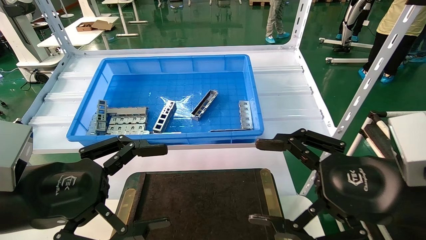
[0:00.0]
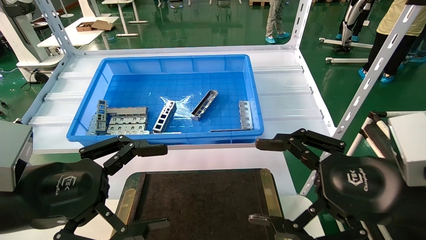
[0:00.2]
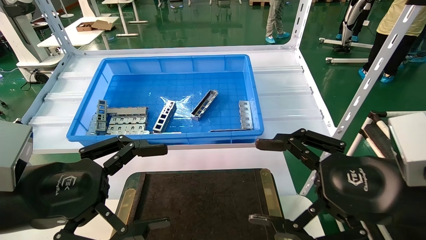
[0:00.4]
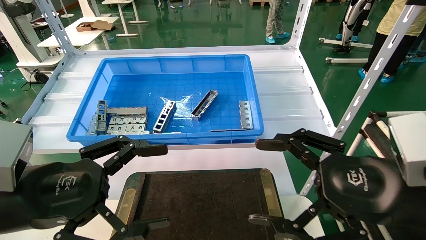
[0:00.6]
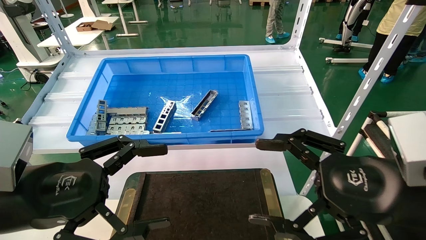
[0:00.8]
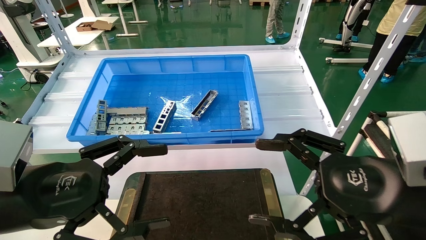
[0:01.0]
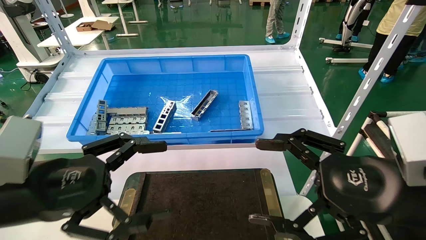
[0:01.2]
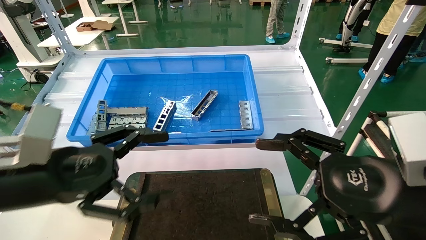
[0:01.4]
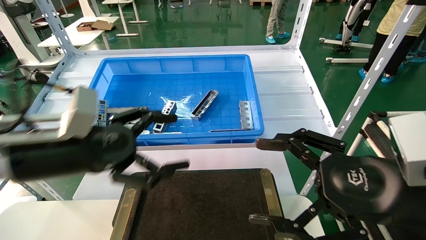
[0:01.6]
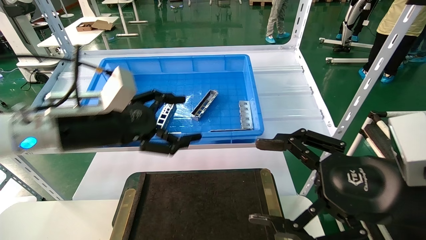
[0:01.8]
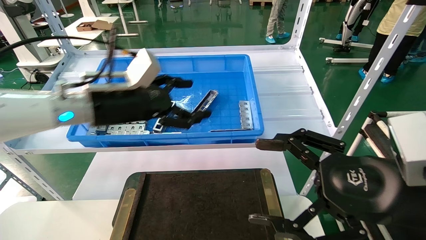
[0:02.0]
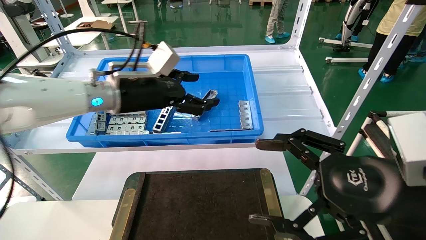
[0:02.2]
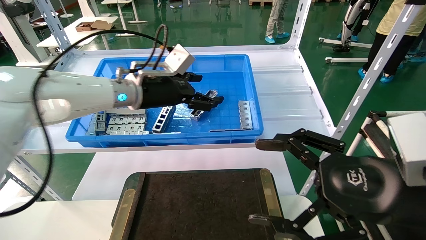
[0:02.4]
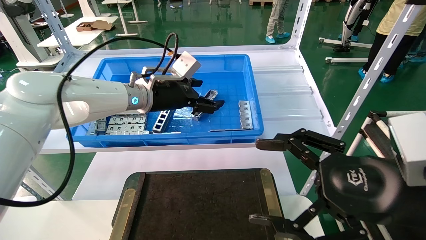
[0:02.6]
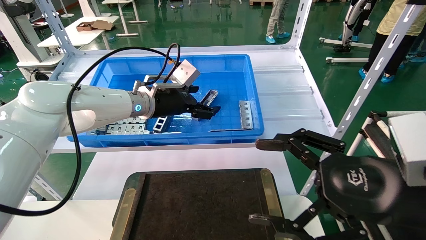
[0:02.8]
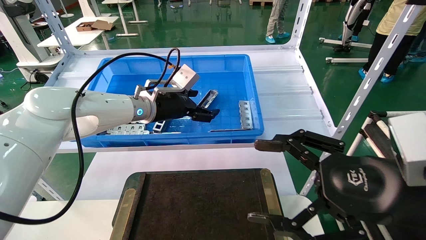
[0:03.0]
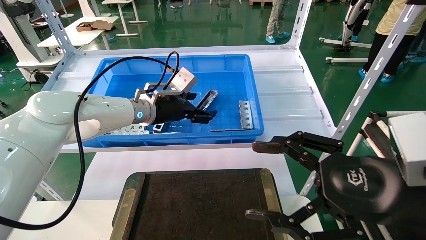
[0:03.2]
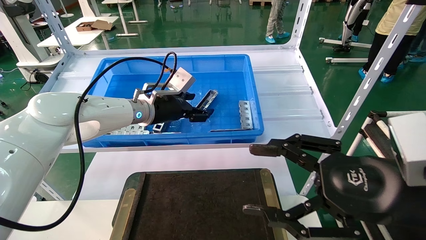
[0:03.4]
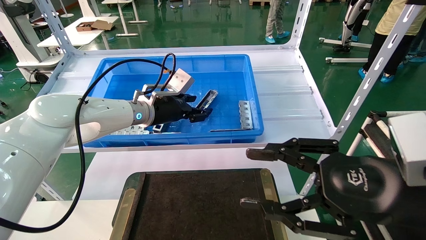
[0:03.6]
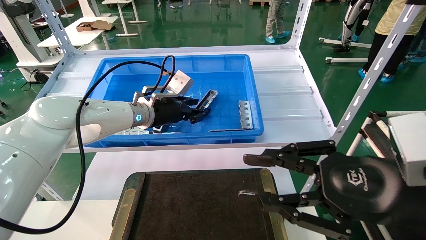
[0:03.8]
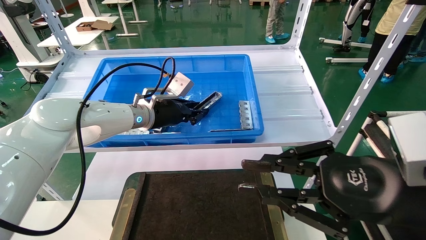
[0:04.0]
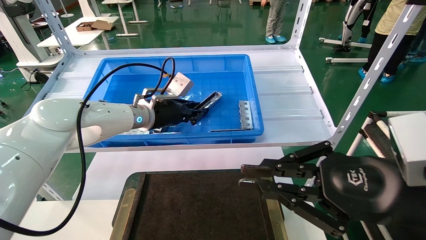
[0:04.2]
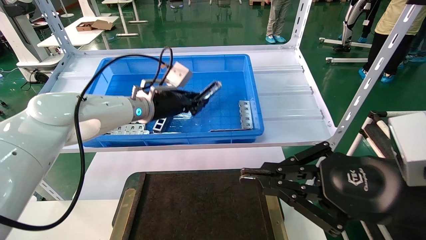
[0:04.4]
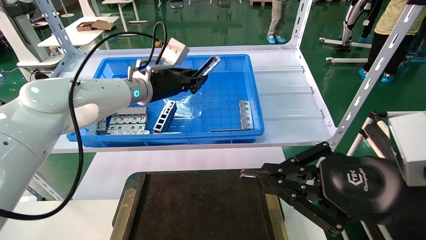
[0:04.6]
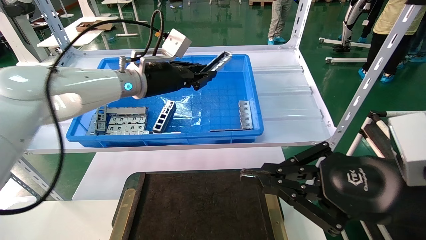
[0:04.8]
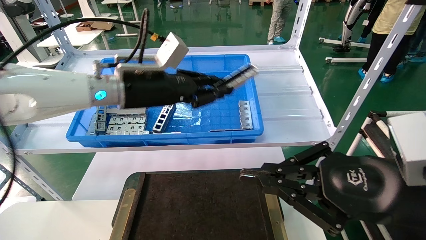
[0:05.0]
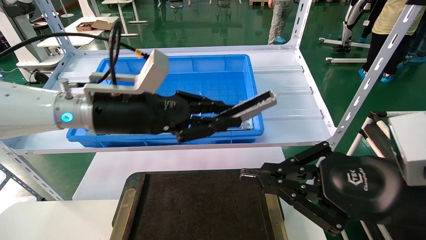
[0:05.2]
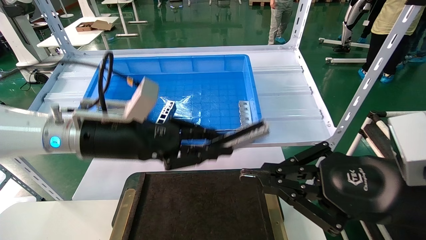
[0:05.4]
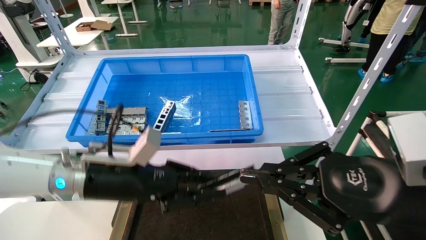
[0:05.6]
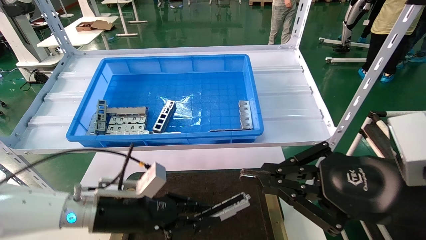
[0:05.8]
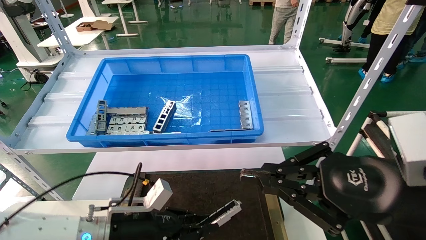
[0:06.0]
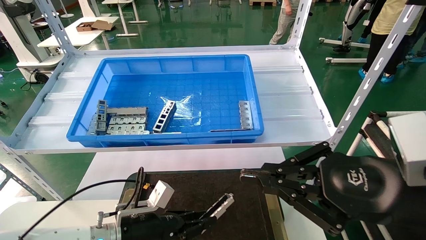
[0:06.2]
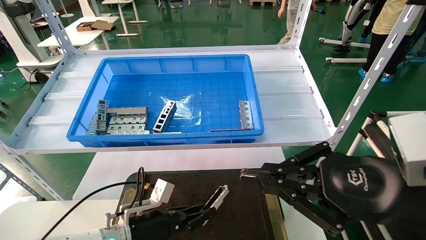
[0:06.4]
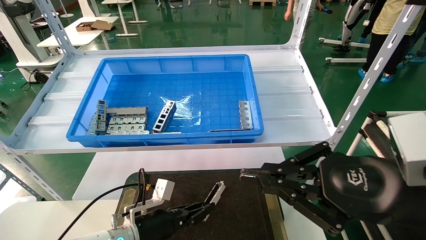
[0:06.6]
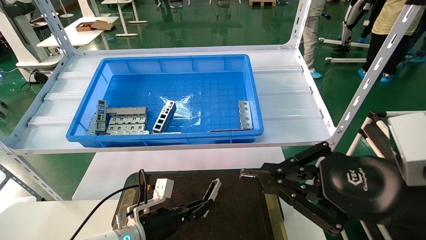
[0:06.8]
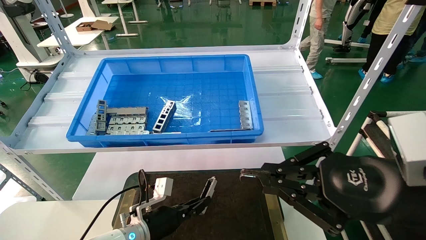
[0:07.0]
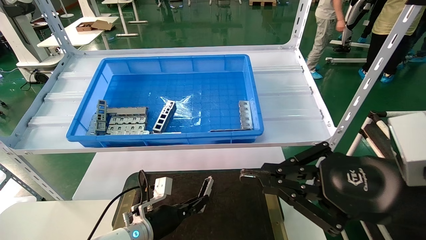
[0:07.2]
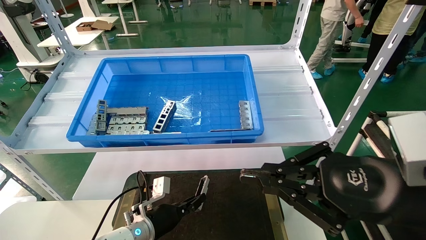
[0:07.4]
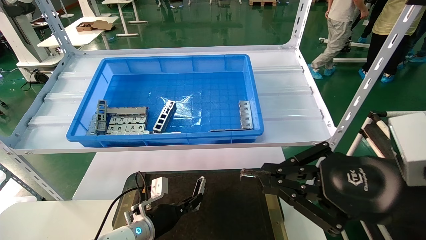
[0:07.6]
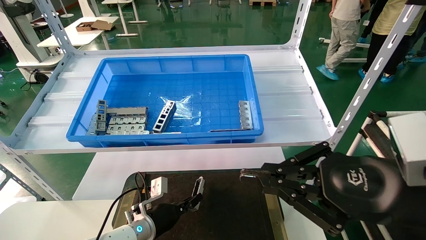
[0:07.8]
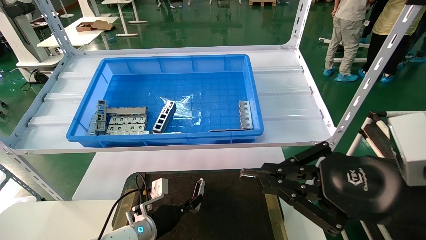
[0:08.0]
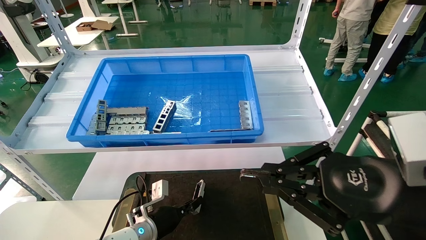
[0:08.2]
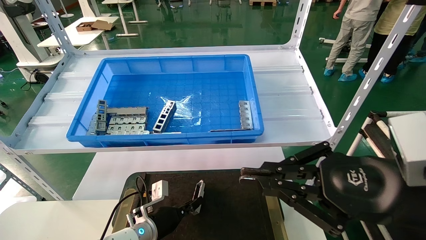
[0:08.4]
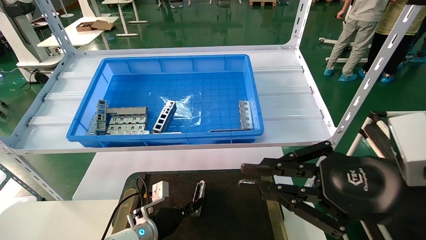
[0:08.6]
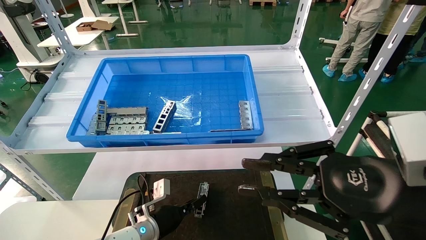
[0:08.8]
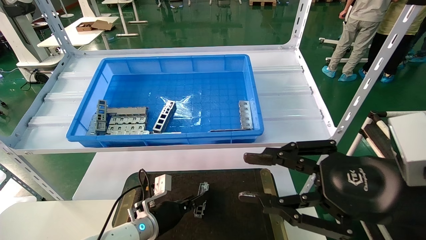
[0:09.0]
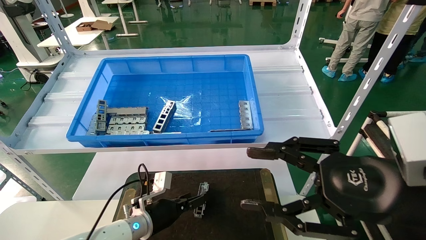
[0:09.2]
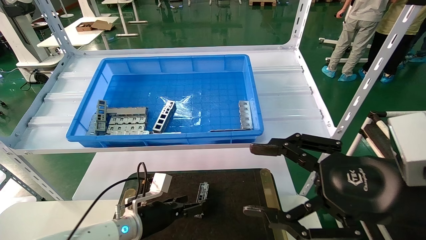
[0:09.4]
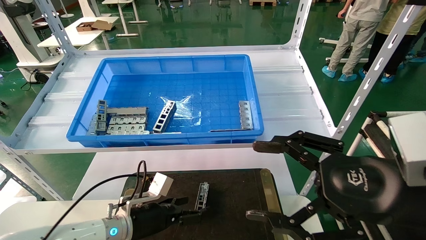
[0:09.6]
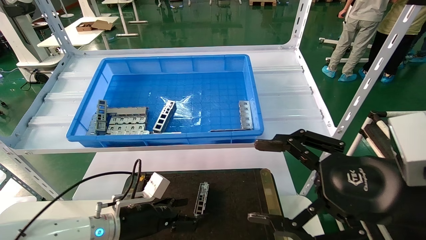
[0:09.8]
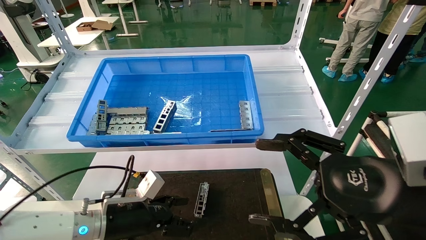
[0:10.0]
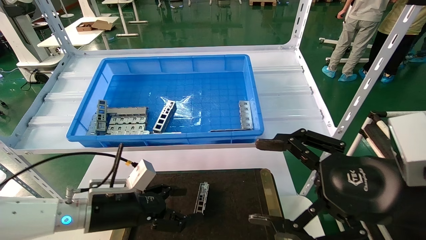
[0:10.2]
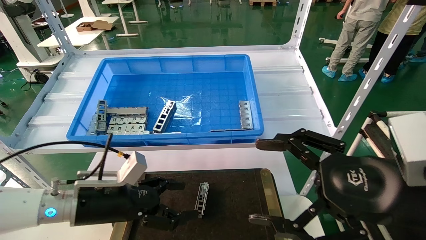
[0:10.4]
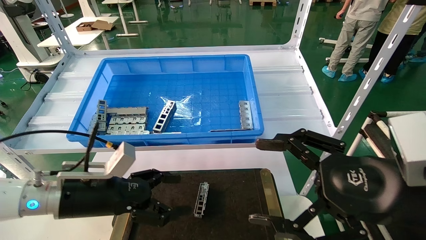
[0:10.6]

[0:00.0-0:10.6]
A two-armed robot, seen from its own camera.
Task of the whole recording: Grasp the part with one hand and place it on the black container.
Step, 0:01.6 to 0:04.0: Pick up the front USB bracket from the feeding area.
Step, 0:04.2 to 0:08.6: Place the front USB bracket into the box.
0:00.0 to 0:01.6: The left gripper shifts approximately 10 cm forward.
0:01.6 to 0:03.0: The left gripper heads forward and to the right, covering approximately 25 cm.
0:03.0 to 0:04.6: The right gripper closes up; the left gripper closes.
0:04.6 to 0:06.0: The left gripper goes about 30 cm downward and backward.
0:06.0 to 0:07.6: The left gripper is displaced downward and forward by approximately 10 cm.
0:07.6 to 0:09.0: Both grippers stay about where they are.
0:09.0 to 0:10.6: The left gripper goes about 20 cm upward, backward and to the left, and opens its fingers. Meanwhile the right gripper opens its fingers.
